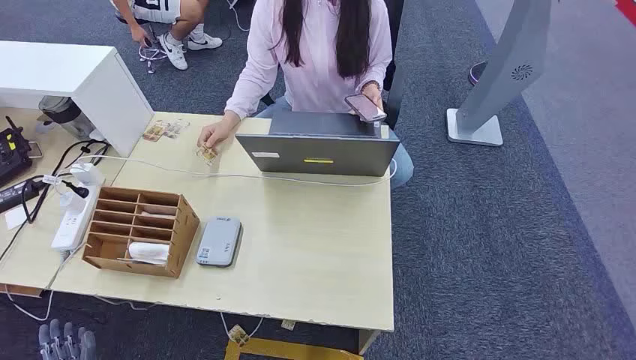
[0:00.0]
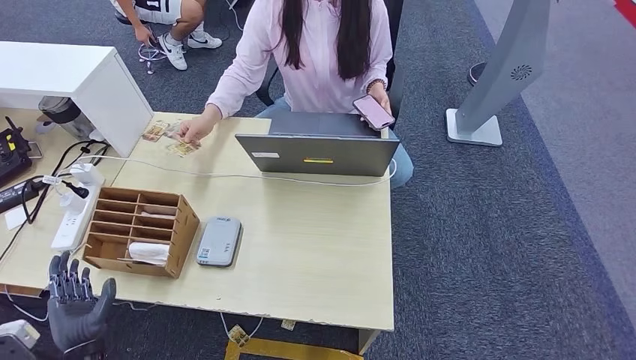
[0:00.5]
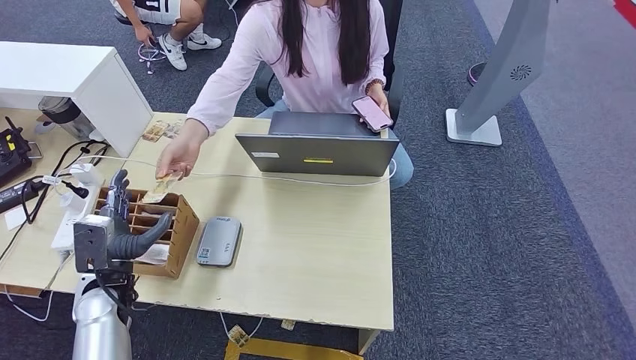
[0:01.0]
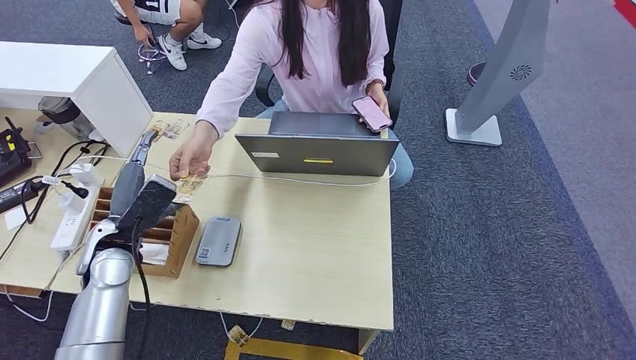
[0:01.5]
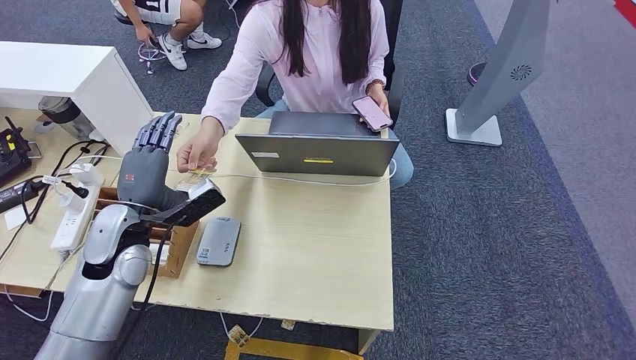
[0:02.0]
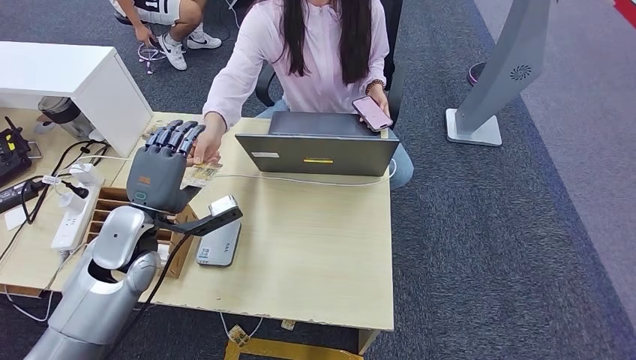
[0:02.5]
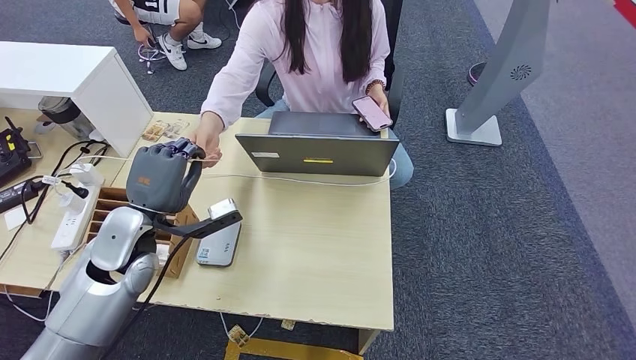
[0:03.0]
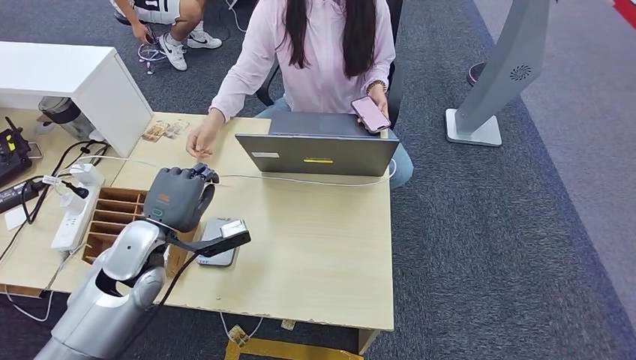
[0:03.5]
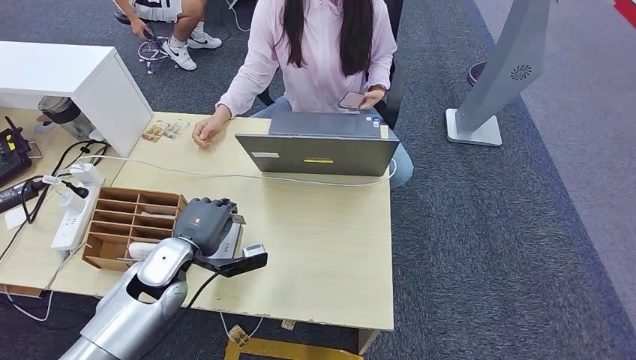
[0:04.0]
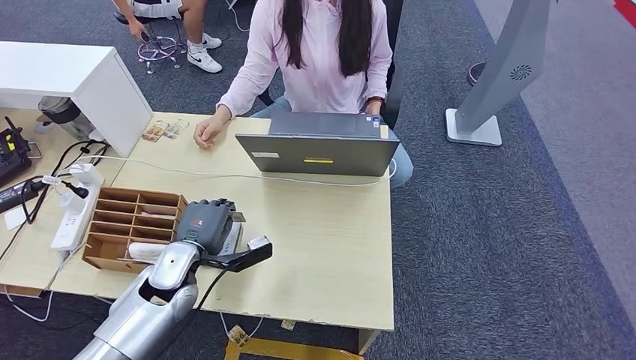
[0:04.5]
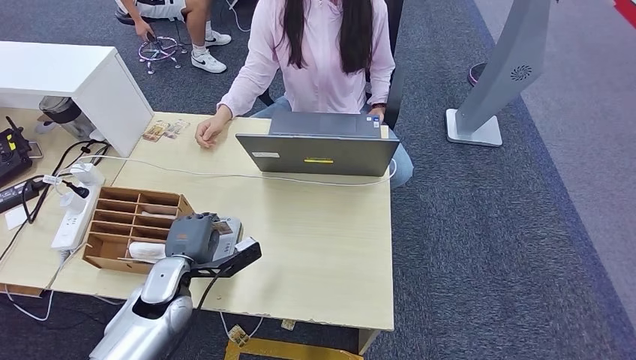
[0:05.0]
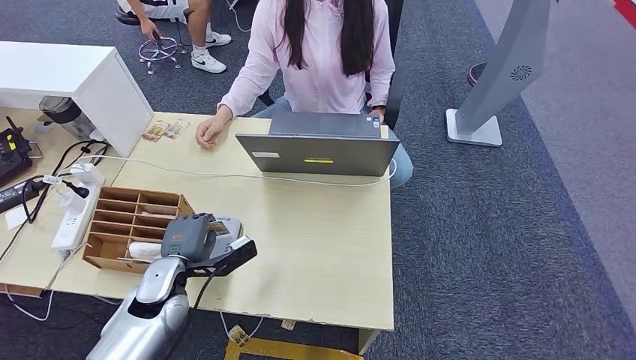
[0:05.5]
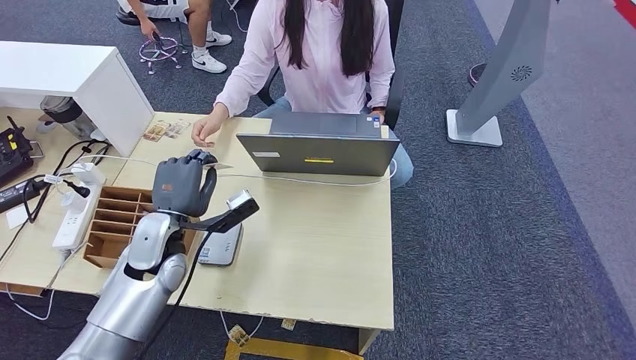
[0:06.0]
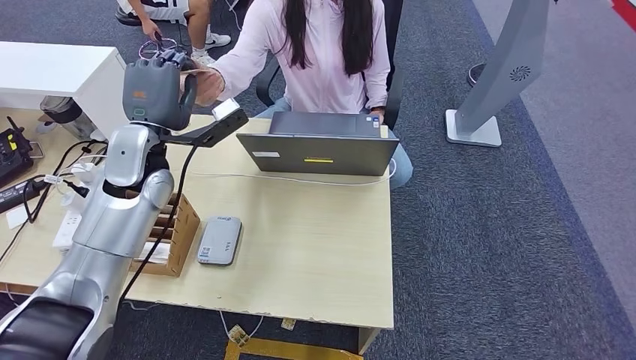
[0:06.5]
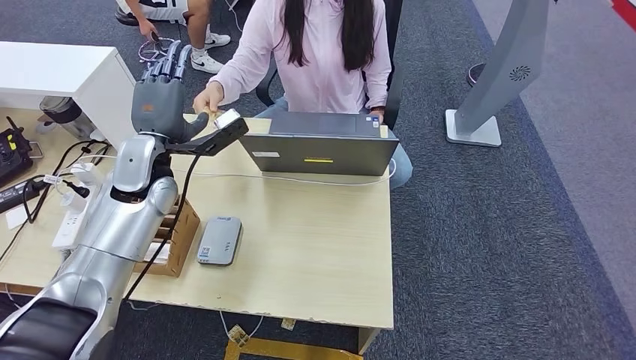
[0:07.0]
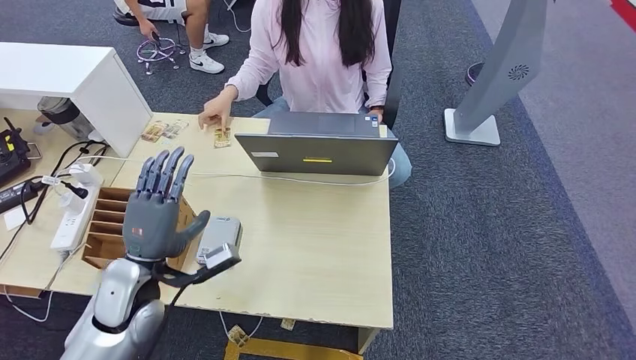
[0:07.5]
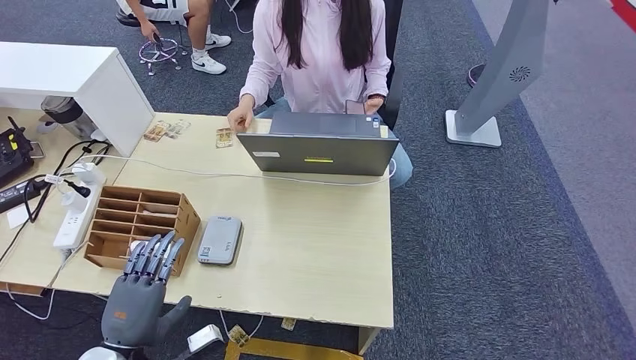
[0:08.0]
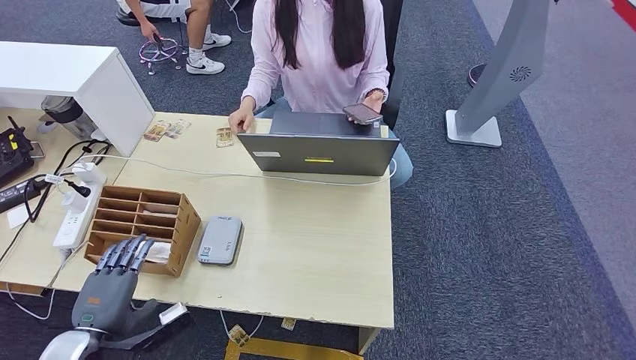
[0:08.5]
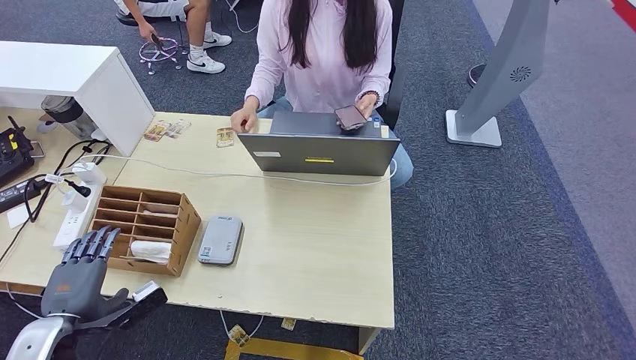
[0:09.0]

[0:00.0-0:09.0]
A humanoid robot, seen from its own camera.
Step, 0:00.0 to 0:03.0: Take the ID card from the person's hand.
Step, 0:03.5 to 0:05.0: Place the ID card on the card reader.
Step, 0:05.5 to 0:06.5: Hand the ID card to the person.
0:02.0 to 0:04.5: The left hand goes roughly 10 cm downward and to the right.
0:04.5 to 0:07.0: The left hand travels upward and forward by roughly 20 cm.
0:07.0 to 0:09.0: The left hand shifts approximately 30 cm backward, downward and to the left.

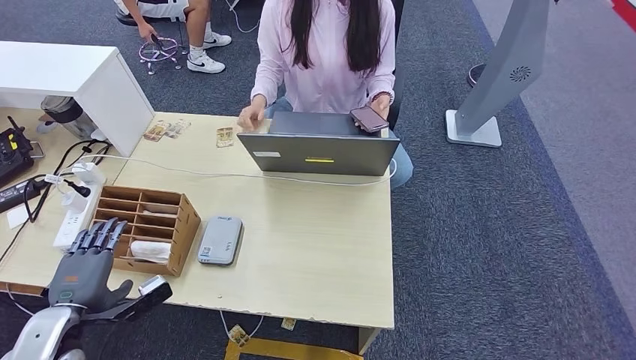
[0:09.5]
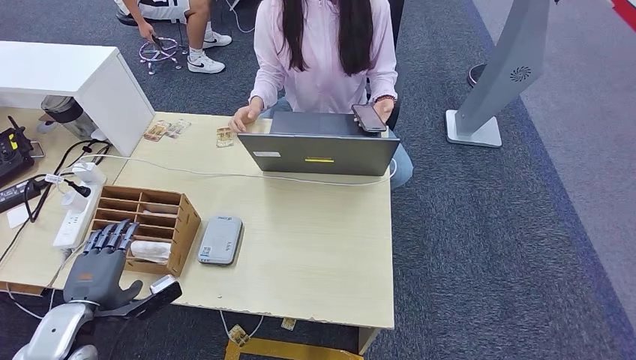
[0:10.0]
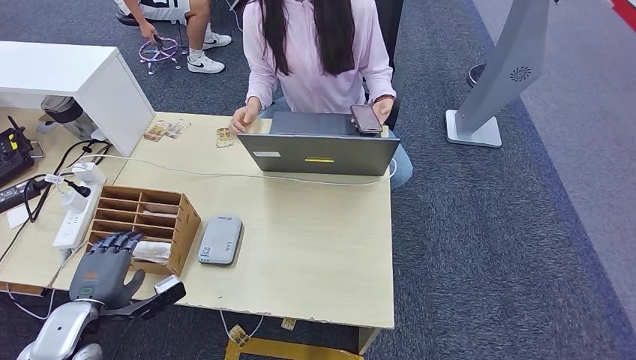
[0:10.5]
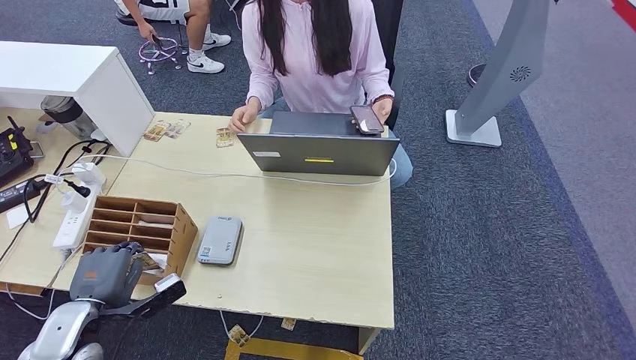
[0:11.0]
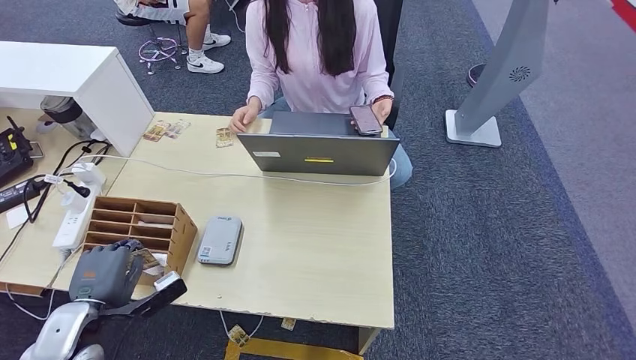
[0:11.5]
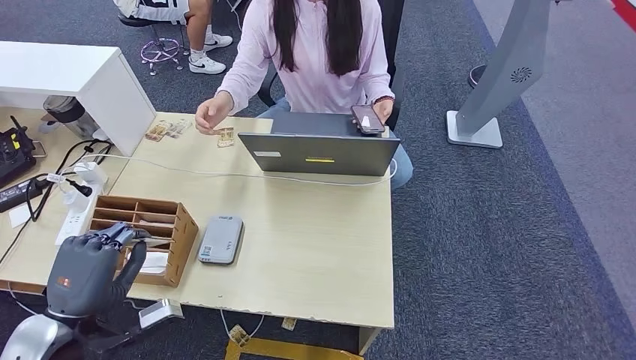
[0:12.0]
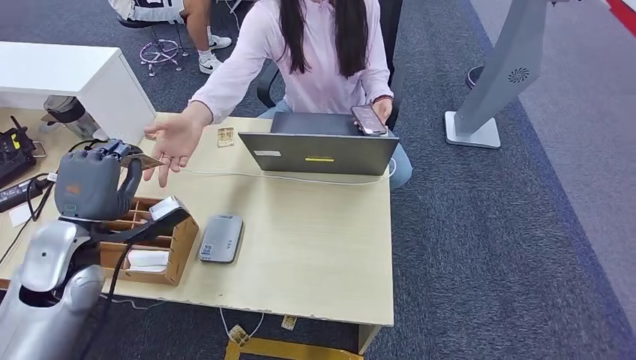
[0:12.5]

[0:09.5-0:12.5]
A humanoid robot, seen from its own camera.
Step, 0:09.5 to 0:12.0: Pick up the room key from the key card box.
0:09.5 to 0:11.0: There are only small adjustments of the hands.
